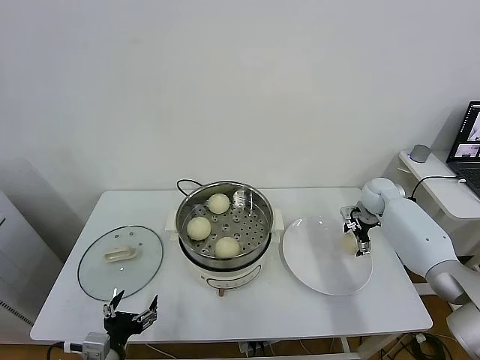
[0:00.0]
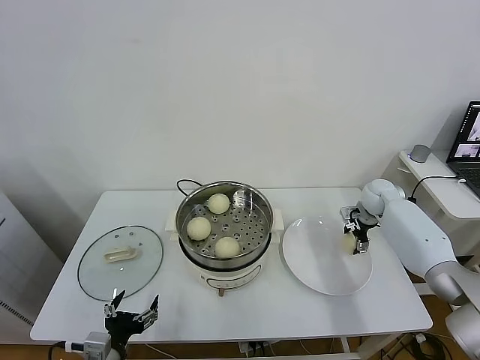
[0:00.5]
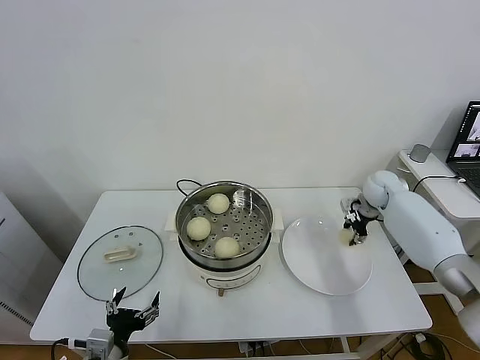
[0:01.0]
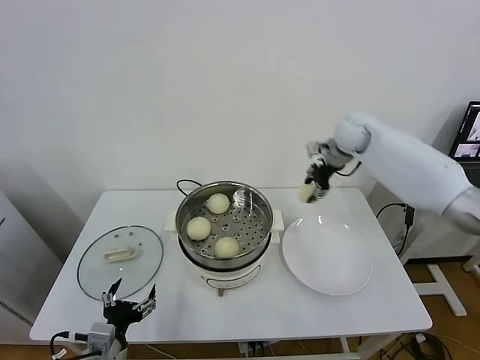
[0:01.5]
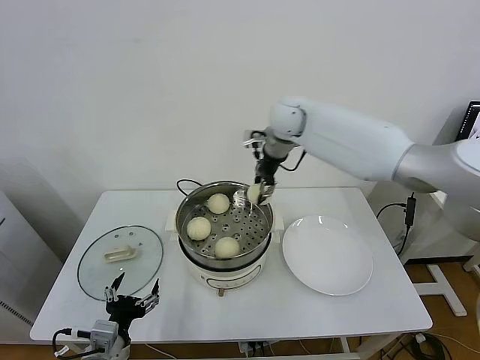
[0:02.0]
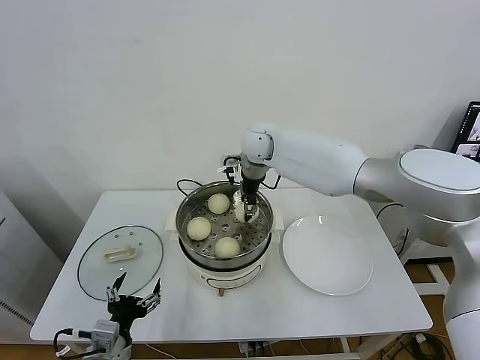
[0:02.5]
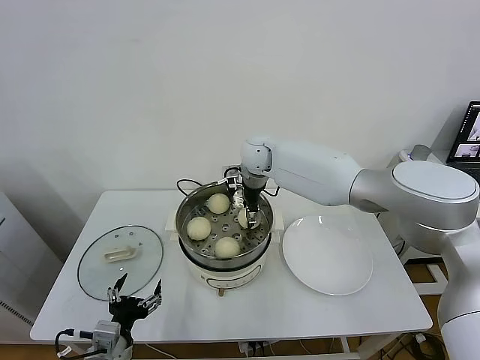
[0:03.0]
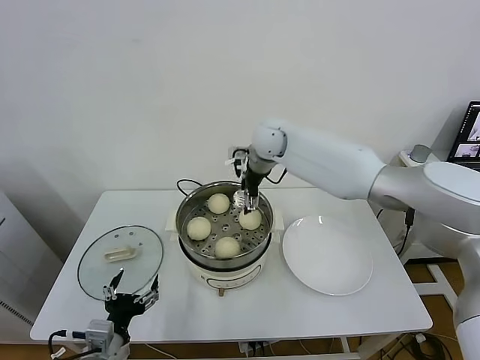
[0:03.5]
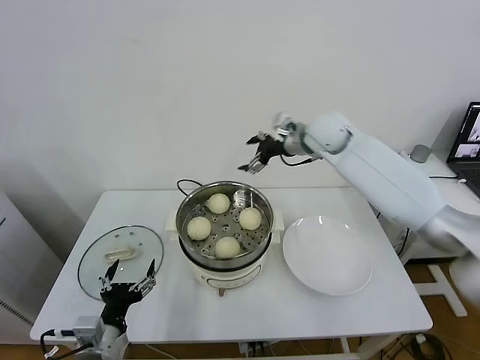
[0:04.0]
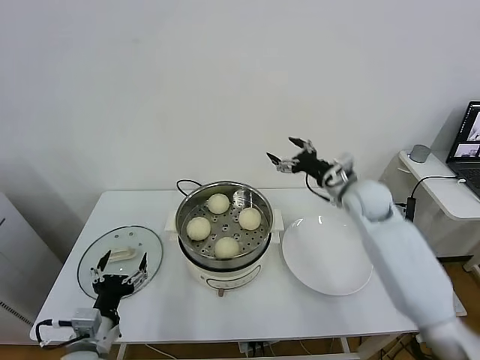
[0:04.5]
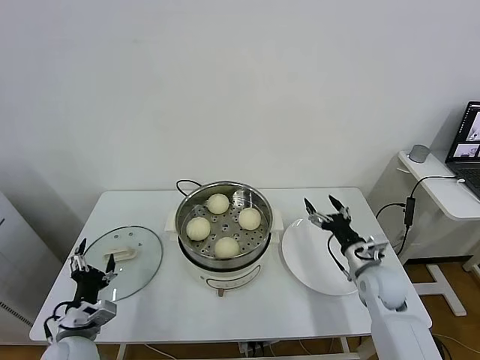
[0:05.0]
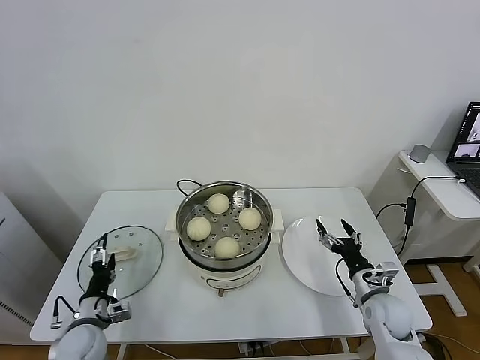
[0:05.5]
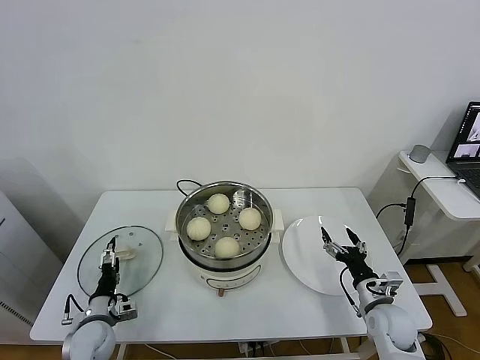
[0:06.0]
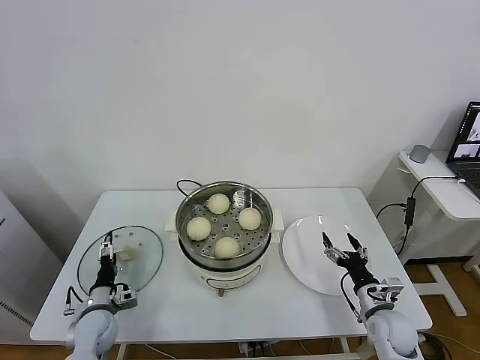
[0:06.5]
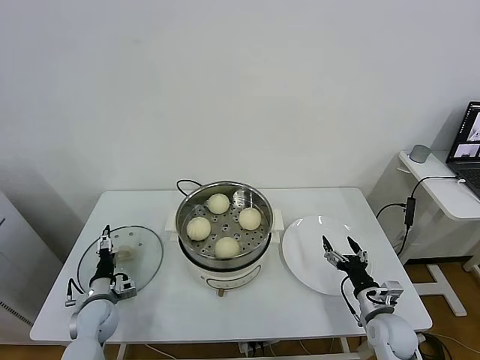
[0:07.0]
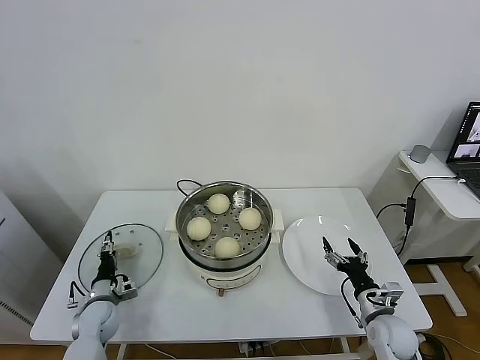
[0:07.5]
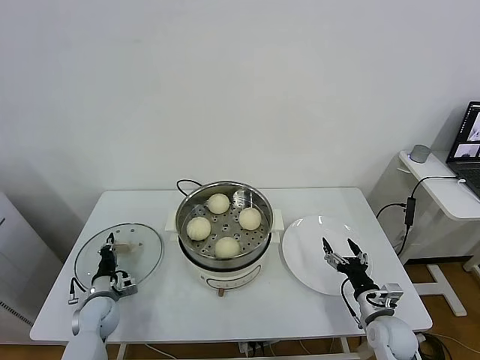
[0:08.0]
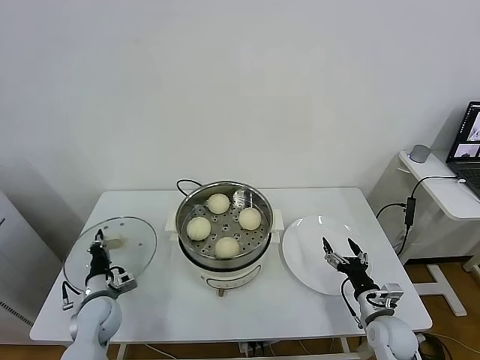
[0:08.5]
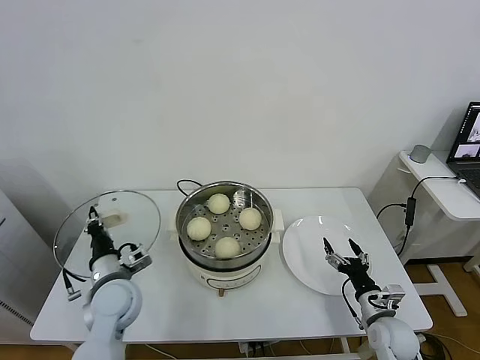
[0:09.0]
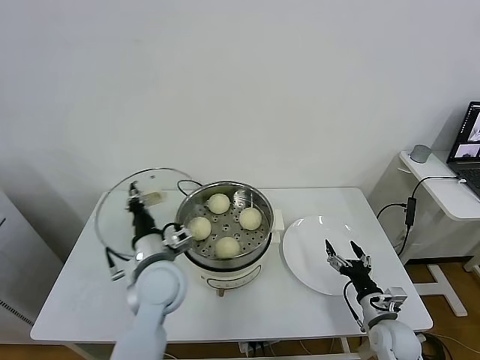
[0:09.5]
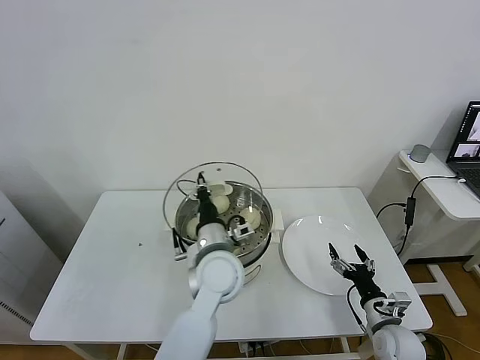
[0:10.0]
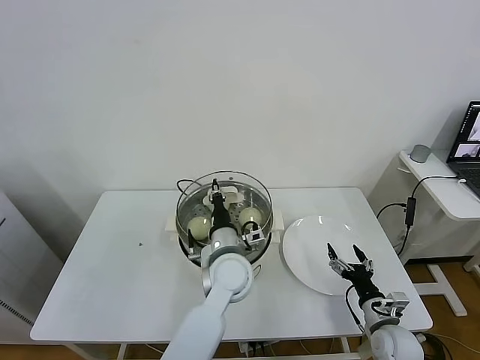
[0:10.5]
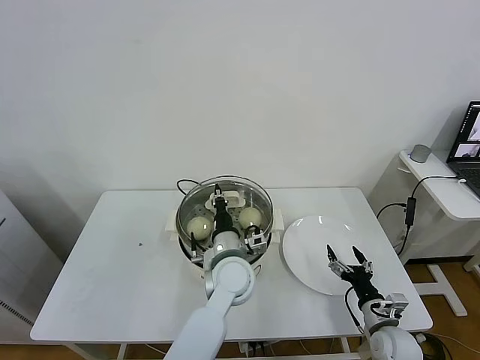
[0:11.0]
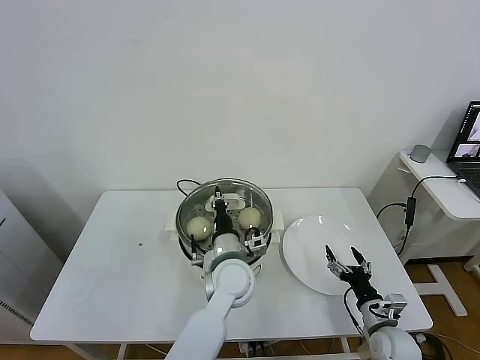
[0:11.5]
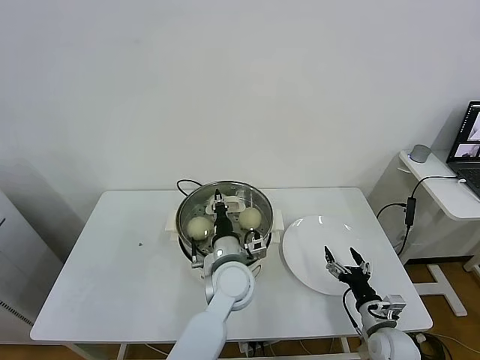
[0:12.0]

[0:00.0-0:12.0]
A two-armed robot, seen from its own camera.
Task of the whole recording: take steamed baozi put them in steamer.
Step, 0:01.0 to 0:03.0: Place the baozi on the steamer with right gripper.
Step, 0:03.5 to 0:08.0: Grasp the pot lid with left gripper.
0:00.0 to 0:02.0: The right gripper is displaced to the left and upward by roughly 35 cm, and closes.
0:02.0 to 0:04.0: The right gripper travels to the right by about 10 cm, and opens up.
0:04.0 to 0:06.0: The right gripper goes roughly 50 cm downward, backward and to the right. Meanwhile the left gripper heads downward, forward and to the left, covering about 20 cm.
0:06.0 to 0:08.0: The left gripper goes approximately 5 cm forward, and closes up.
0:08.0 to 0:10.0: The left gripper moves to the right and upward, approximately 40 cm.
0:10.0 to 0:12.0: The left gripper goes some 5 cm downward.

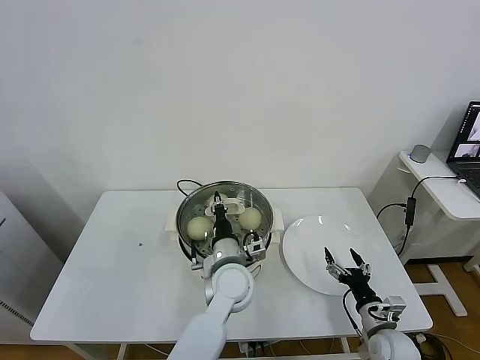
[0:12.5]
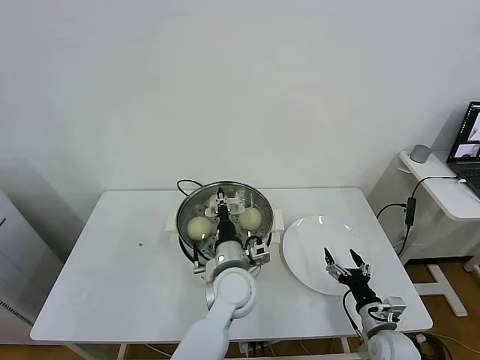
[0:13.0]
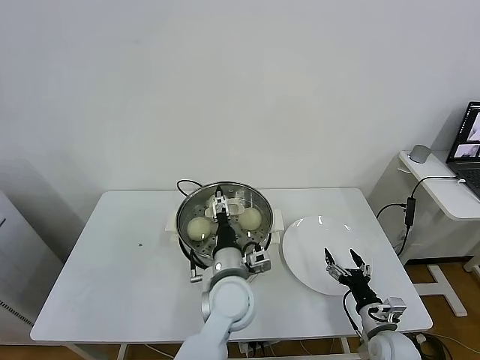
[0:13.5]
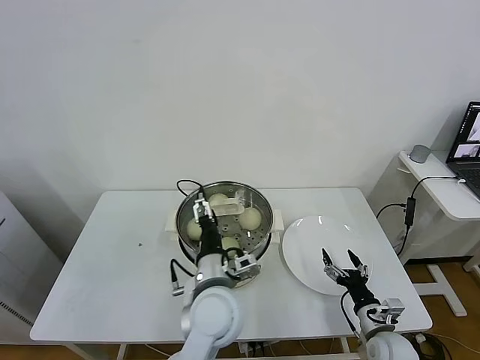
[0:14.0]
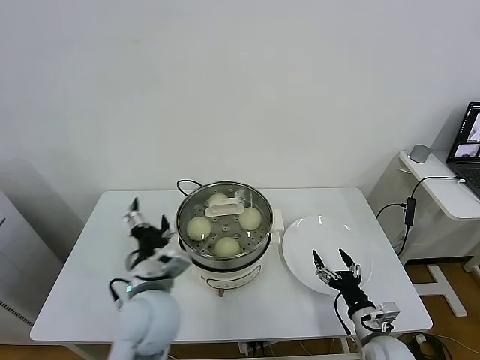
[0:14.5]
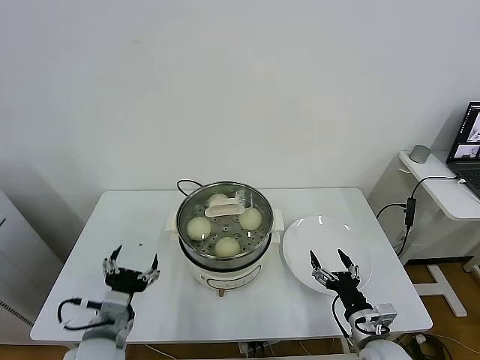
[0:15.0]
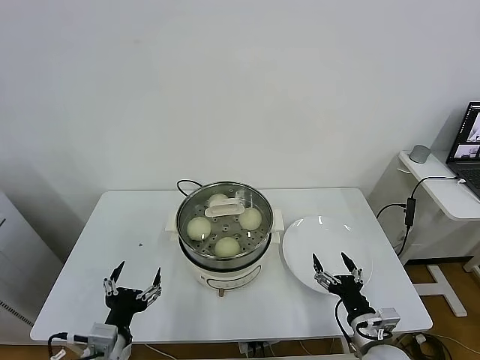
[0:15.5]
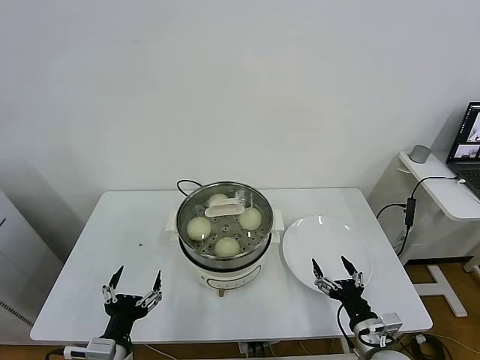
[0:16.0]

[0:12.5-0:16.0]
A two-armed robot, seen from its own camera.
Task of the whole recording: take steamed baozi put them in steamer.
0:12.5 to 0:14.5: The left gripper travels to the left, backward and upward by some 15 cm, and opens up.
0:14.5 to 0:16.0: The left gripper is displaced backward, to the left and downward by about 20 cm. The right gripper moves roughly 5 cm.
